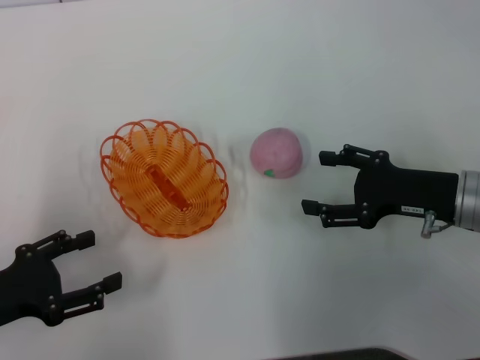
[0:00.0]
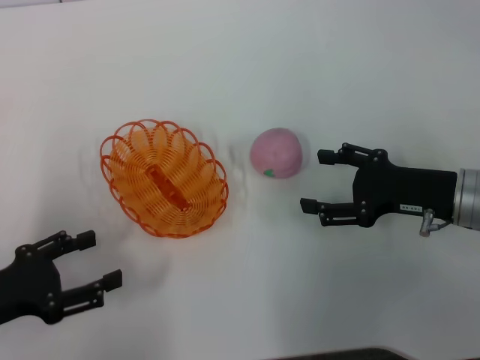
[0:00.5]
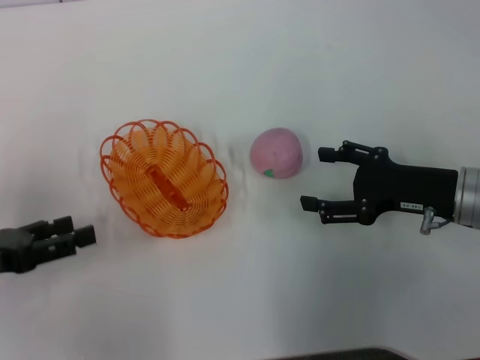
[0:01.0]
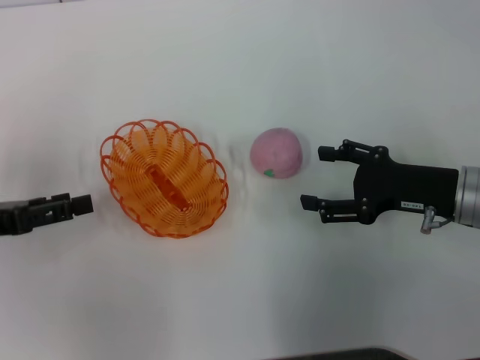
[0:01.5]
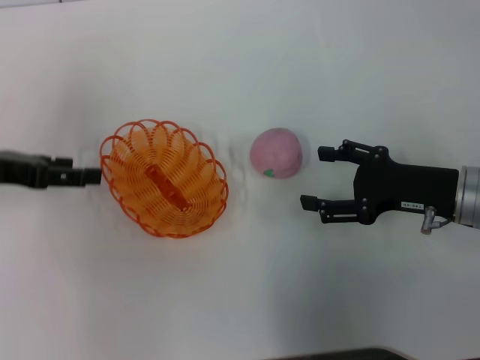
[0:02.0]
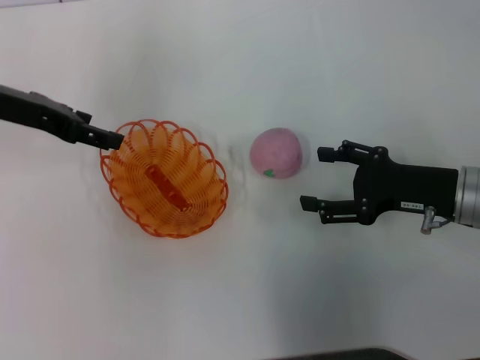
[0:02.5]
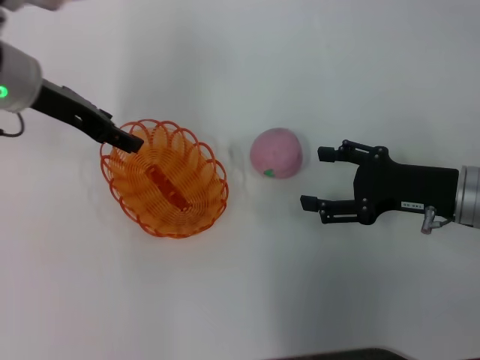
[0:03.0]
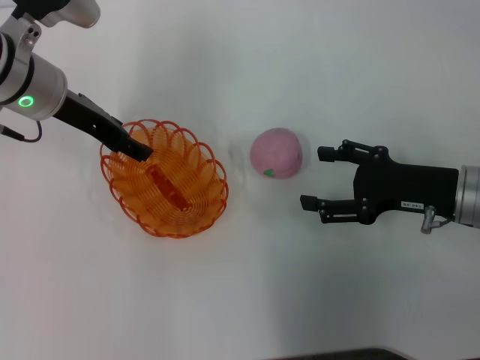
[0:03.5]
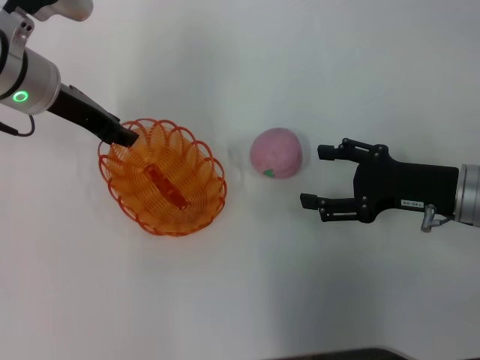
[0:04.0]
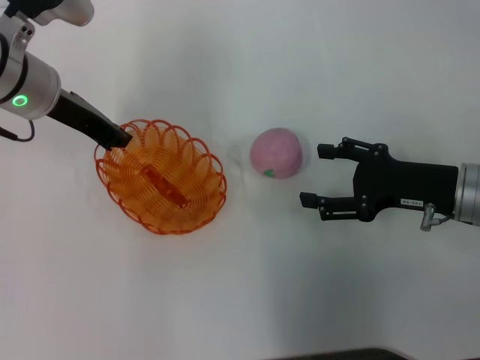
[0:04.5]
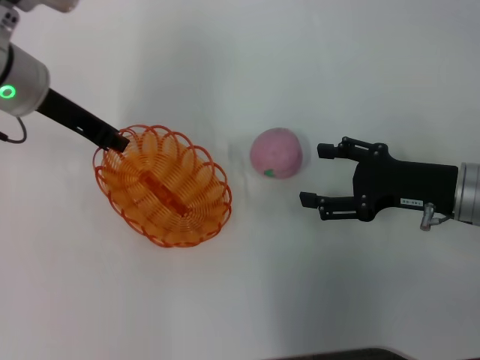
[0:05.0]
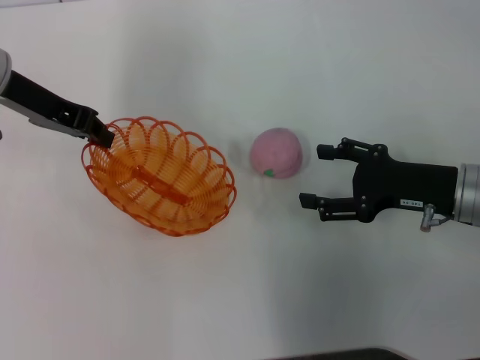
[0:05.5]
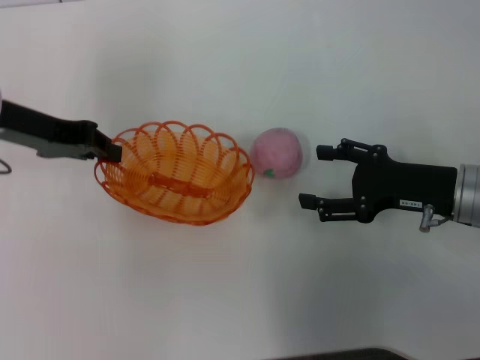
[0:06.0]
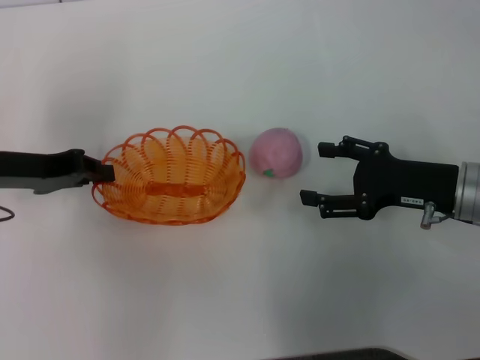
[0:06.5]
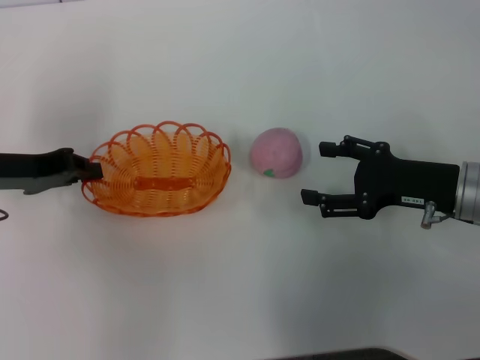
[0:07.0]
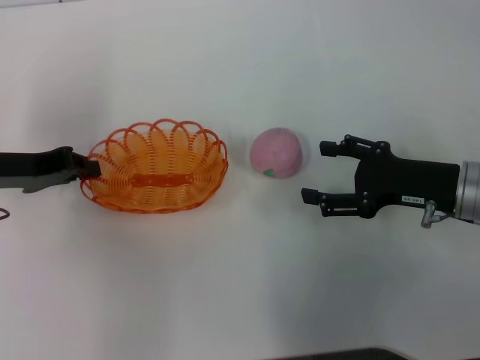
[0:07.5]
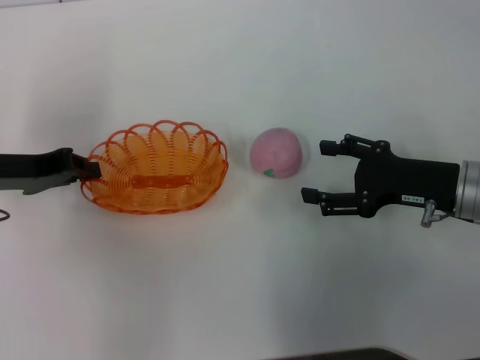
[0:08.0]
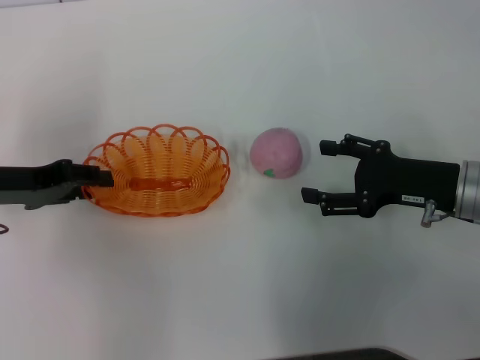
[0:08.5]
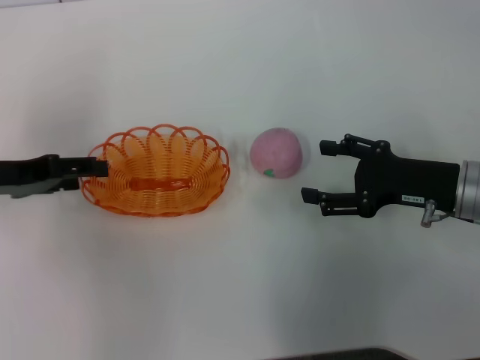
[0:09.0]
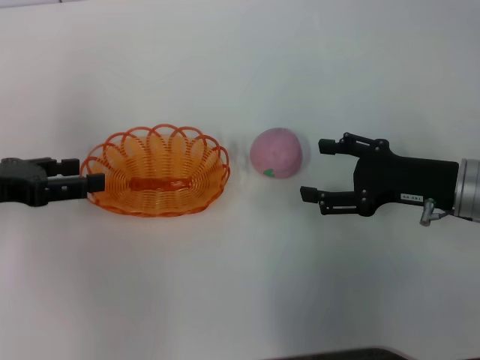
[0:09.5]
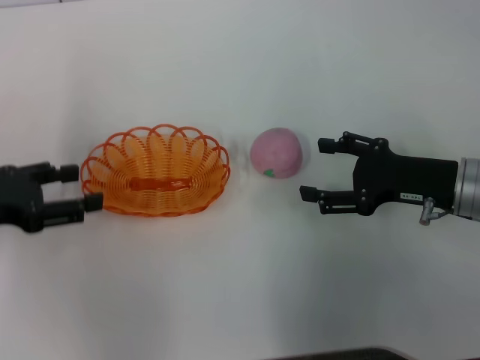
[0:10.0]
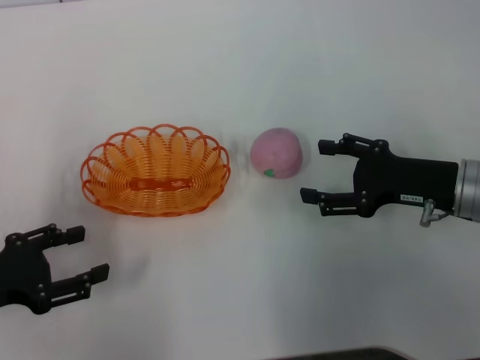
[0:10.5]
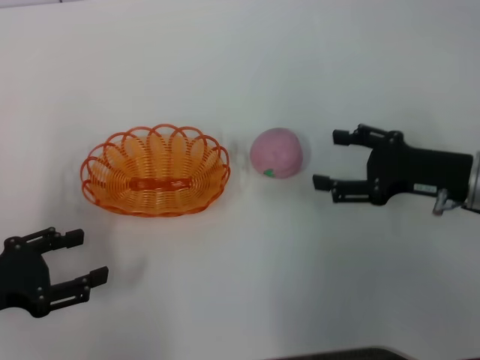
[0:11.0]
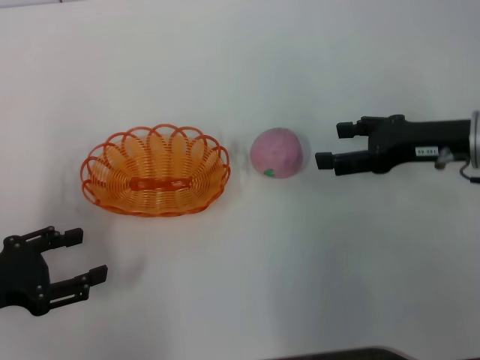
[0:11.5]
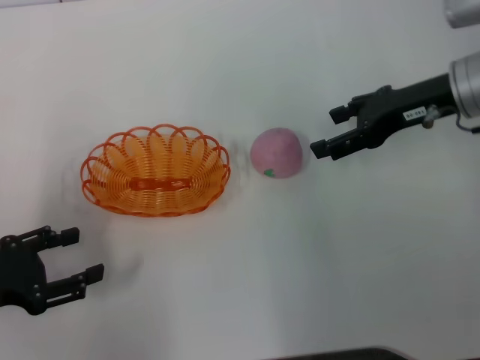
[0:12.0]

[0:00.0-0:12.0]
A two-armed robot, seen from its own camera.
Step, 0:00.0 to 0:05.0: Pick up the basket with the left gripper.
Step, 0:05.5 to 0:09.0: Place the basket in the center of view with the left gripper.
0:00.0 to 0:02.0: The left gripper goes approximately 15 cm forward and upward.
0:02.0 to 0:04.0: The left gripper moves to the right and forward, roughly 15 cm.
0:04.0 to 0:06.0: The left gripper is displaced to the left by about 5 cm, and closes up.
0:06.0 to 0:08.0: The left gripper moves roughly 5 cm.
0:08.0 to 0:10.0: The left gripper heads backward, covering roughly 5 cm, and opens.
0:10.0 to 0:12.0: The right gripper heads forward and upward, covering roughly 10 cm. The left gripper moves backward, roughly 5 cm.

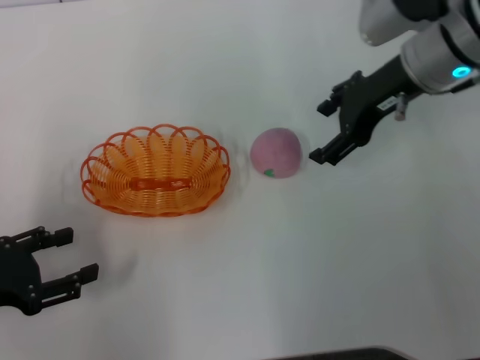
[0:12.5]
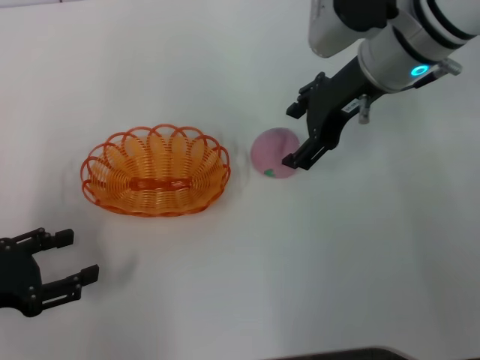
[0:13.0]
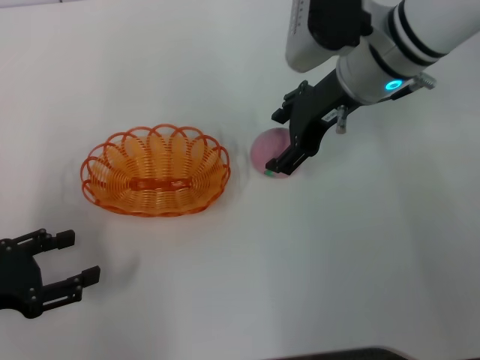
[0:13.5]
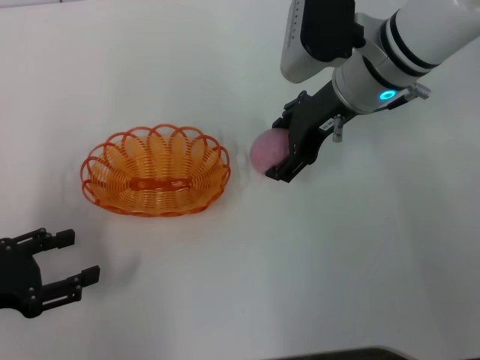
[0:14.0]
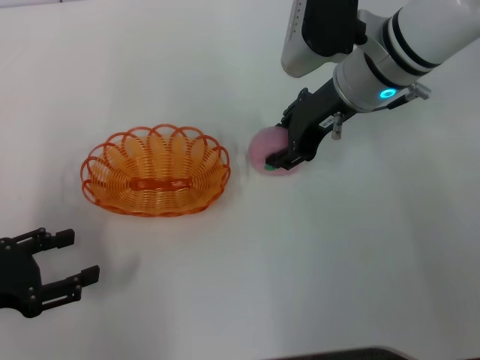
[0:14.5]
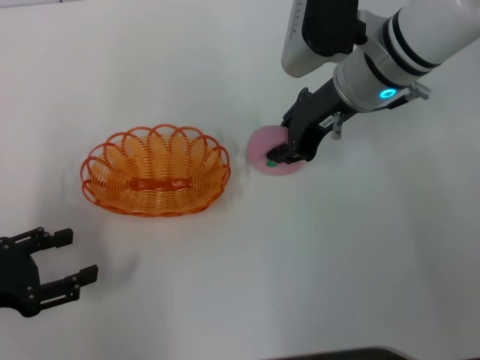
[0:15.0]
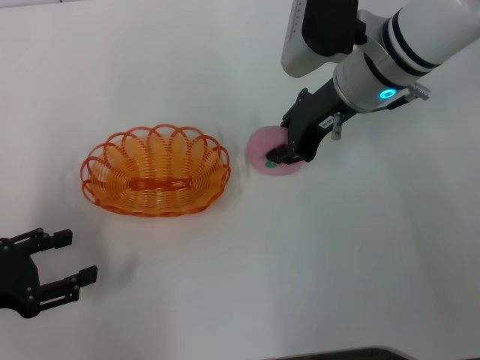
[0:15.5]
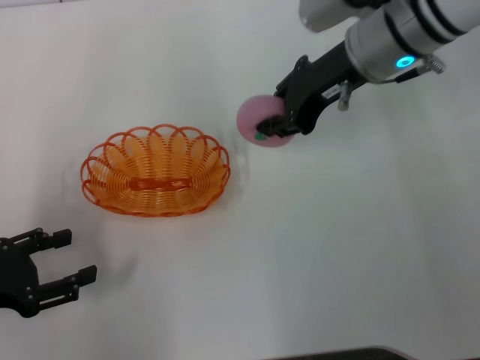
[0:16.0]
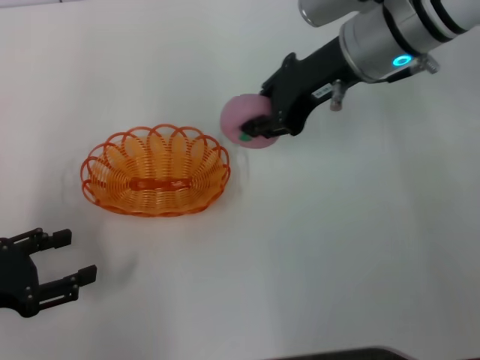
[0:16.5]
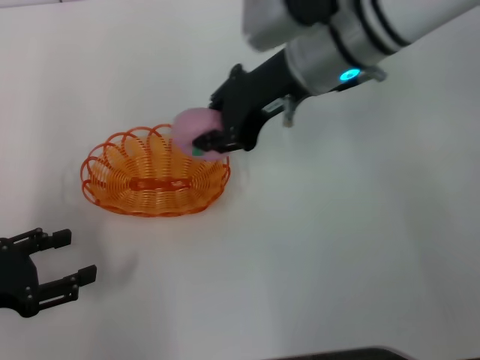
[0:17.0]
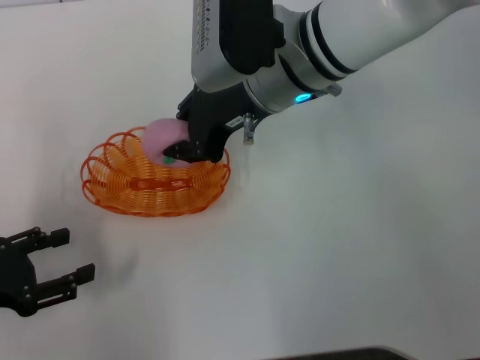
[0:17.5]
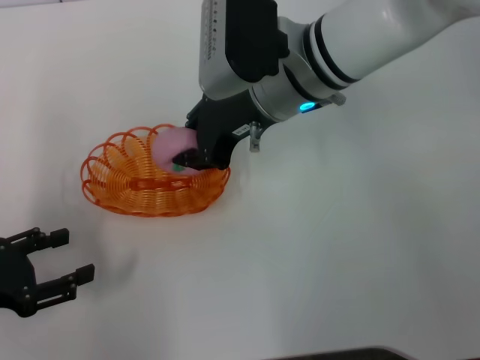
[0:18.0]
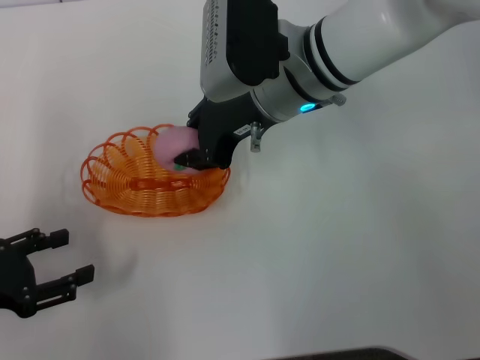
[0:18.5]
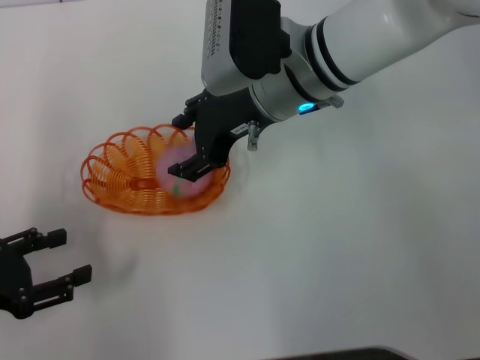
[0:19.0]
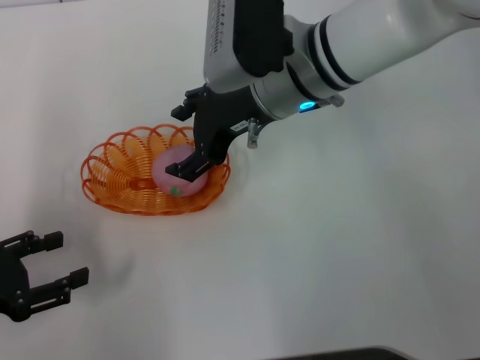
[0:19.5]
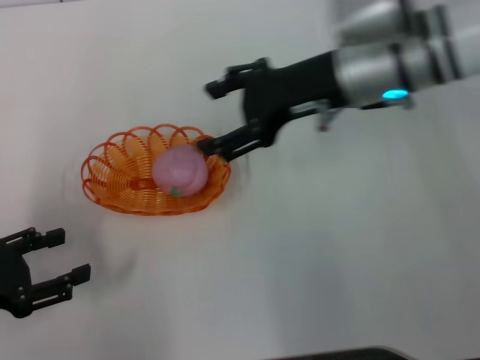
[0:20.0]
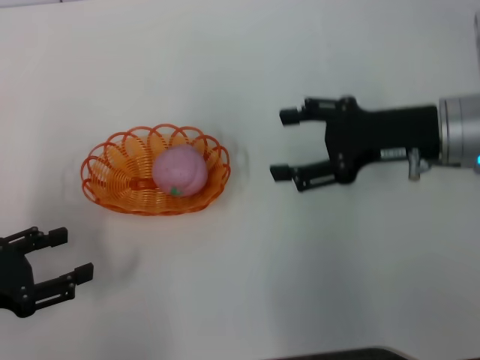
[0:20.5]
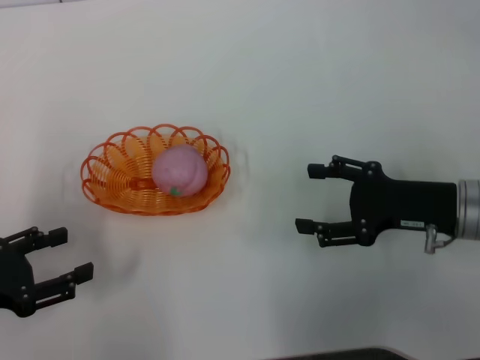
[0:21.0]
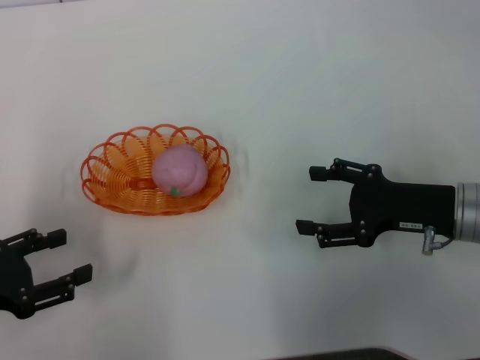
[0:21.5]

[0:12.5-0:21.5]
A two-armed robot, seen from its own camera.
Step, 0:12.5 to 0:16.0: Pick up the peach with the right gripper.
Step, 0:16.5 to 0:19.5: Place the peach into the basket with the right gripper.
0:12.5 to 0:14.5: The right gripper travels to the left by about 5 cm, and closes its fingers.
0:14.5 to 0:17.0: The right gripper changes place by some 5 cm, and closes its fingers.
0:17.0 to 0:19.5: The right gripper opens its fingers.
0:19.5 to 0:21.5: The right gripper is displaced to the right, backward and downward by about 25 cm.

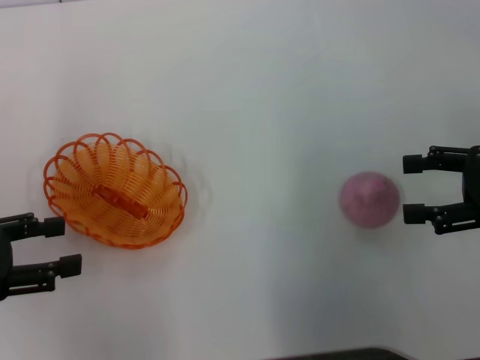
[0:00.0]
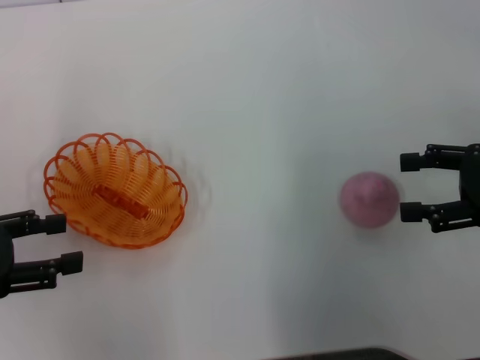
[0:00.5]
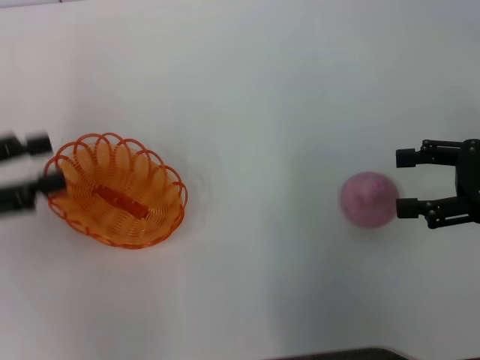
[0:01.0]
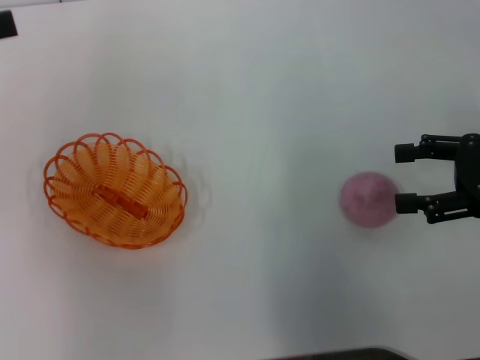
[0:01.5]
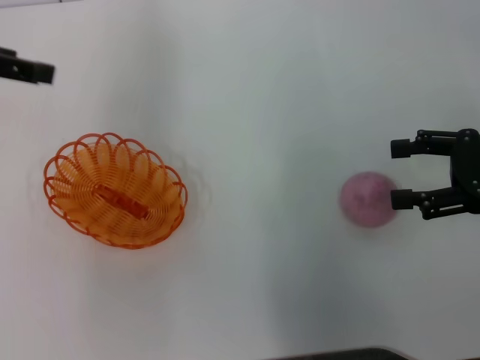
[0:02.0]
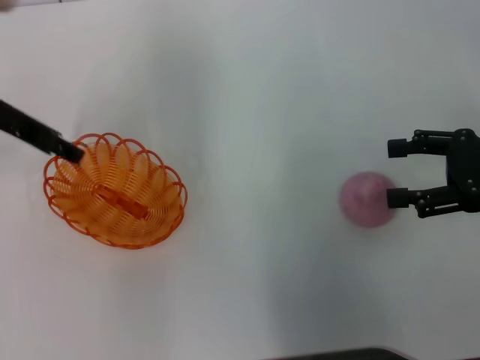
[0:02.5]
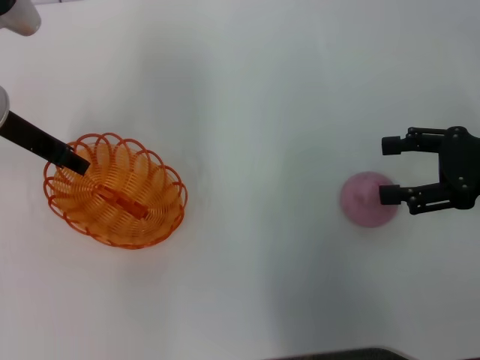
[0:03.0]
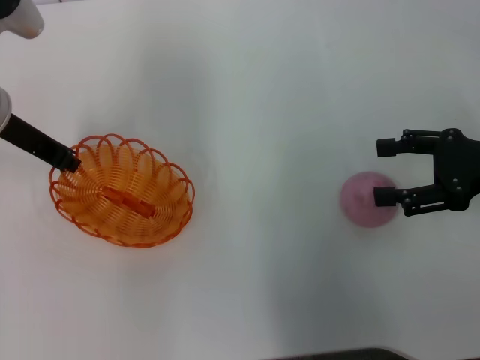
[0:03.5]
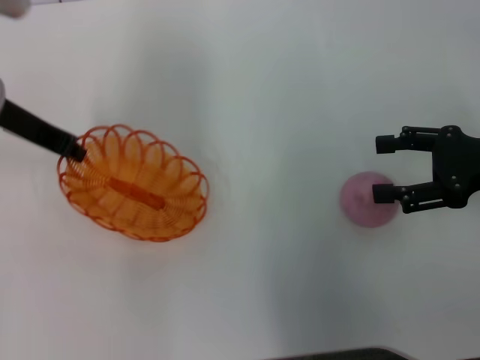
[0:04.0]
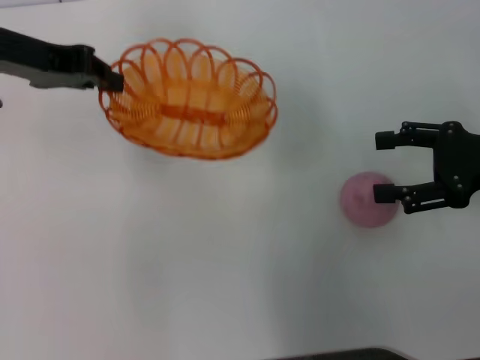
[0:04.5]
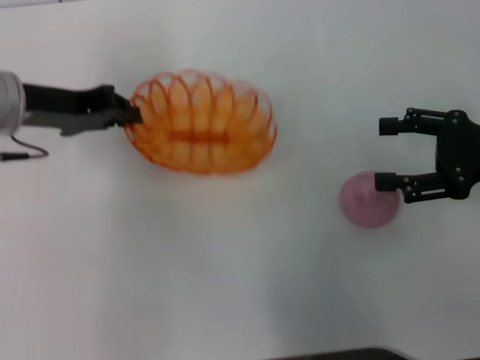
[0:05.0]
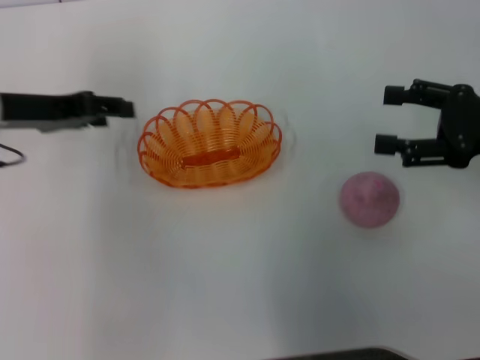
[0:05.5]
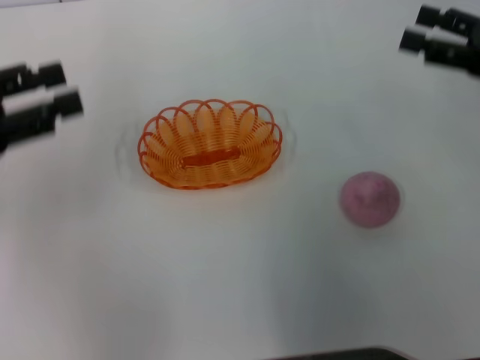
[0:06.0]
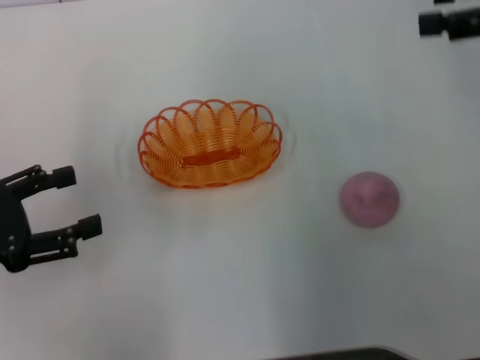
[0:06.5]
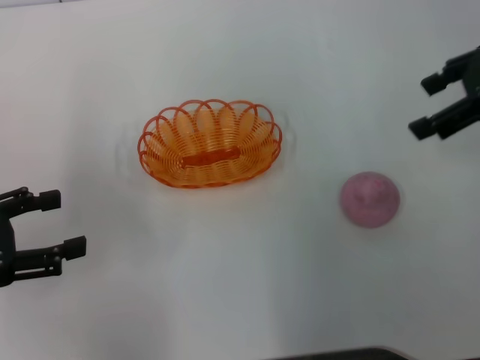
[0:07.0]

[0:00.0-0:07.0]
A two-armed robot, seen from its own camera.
Step, 0:00.0 to 0:04.0: Pick up the basket with the left gripper.
Step, 0:04.5 to 0:05.5: Place the basket in the center of view with the left gripper.
0:00.0 to 0:02.0: The left gripper moves forward and upward, approximately 20 cm.
0:02.0 to 0:03.5: The left gripper goes roughly 10 cm downward and to the right, and closes.
0:05.0 to 0:07.0: The left gripper heads backward and to the left, covering about 15 cm, and opens its fingers, while the right gripper heads upward and forward, covering some 15 cm.
